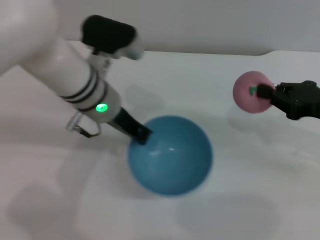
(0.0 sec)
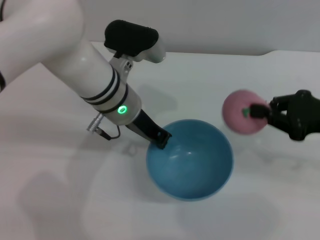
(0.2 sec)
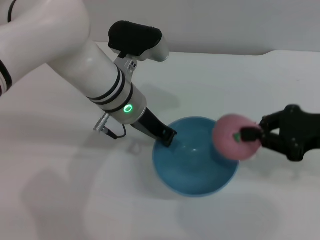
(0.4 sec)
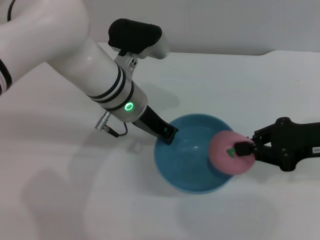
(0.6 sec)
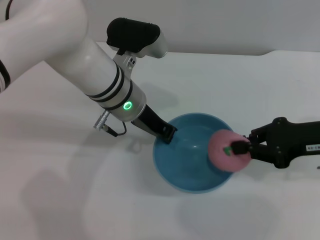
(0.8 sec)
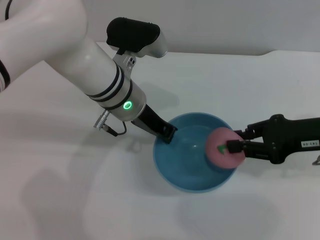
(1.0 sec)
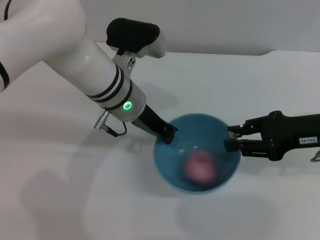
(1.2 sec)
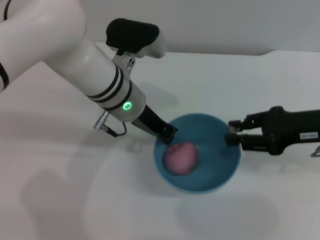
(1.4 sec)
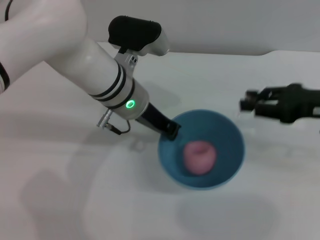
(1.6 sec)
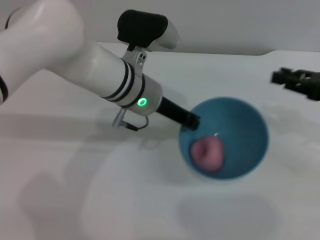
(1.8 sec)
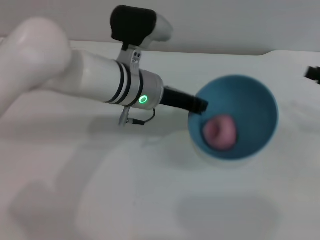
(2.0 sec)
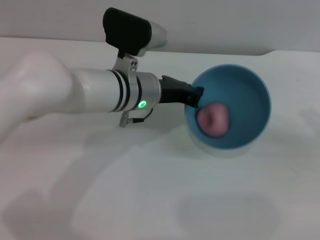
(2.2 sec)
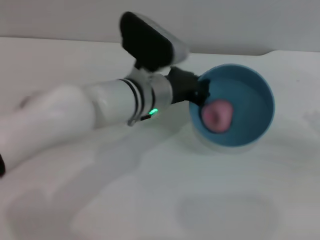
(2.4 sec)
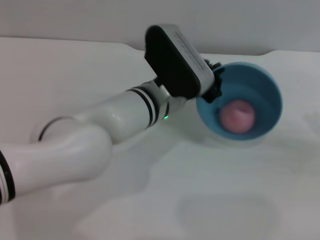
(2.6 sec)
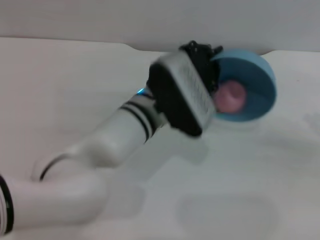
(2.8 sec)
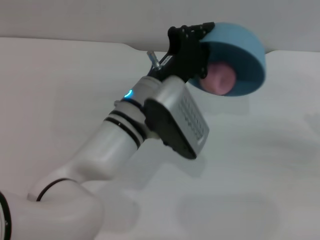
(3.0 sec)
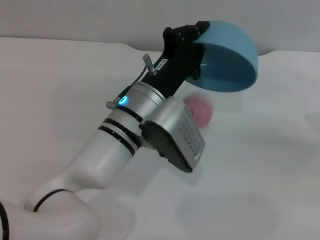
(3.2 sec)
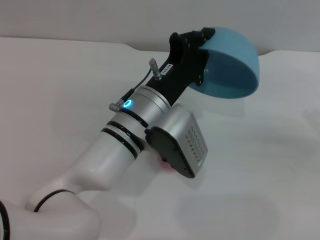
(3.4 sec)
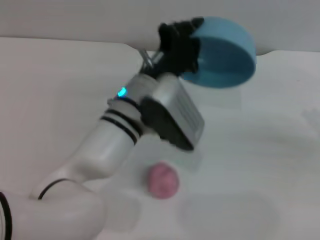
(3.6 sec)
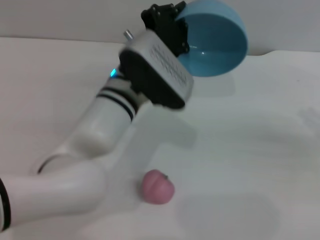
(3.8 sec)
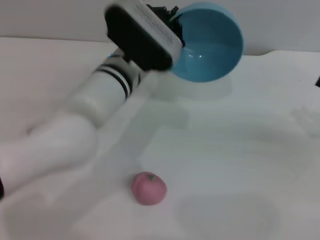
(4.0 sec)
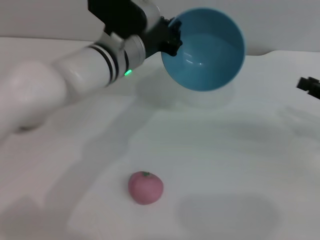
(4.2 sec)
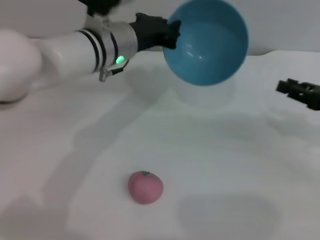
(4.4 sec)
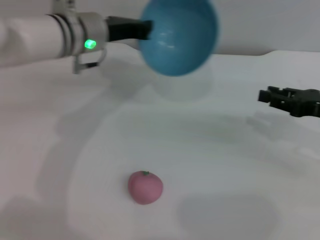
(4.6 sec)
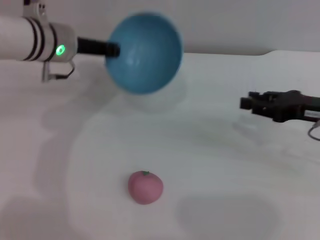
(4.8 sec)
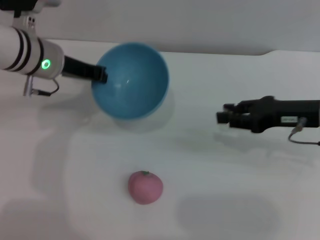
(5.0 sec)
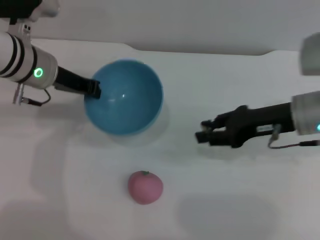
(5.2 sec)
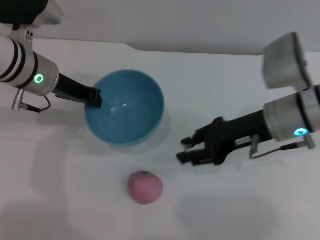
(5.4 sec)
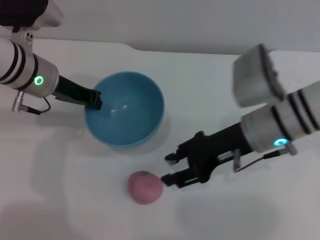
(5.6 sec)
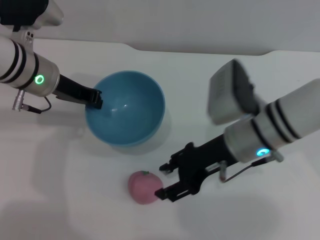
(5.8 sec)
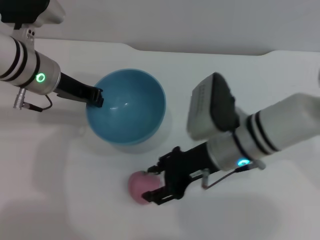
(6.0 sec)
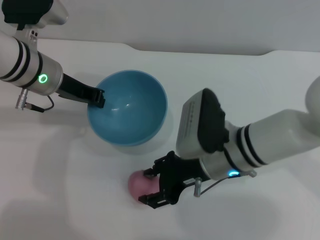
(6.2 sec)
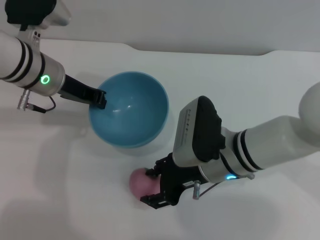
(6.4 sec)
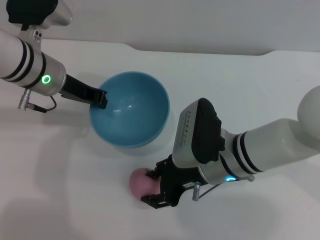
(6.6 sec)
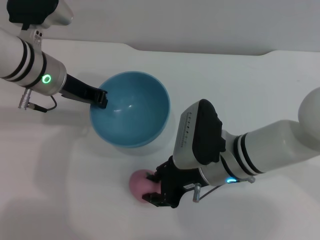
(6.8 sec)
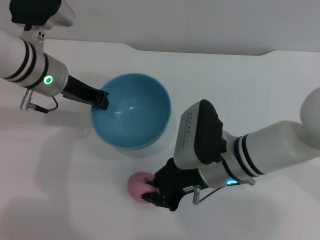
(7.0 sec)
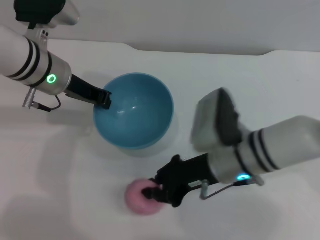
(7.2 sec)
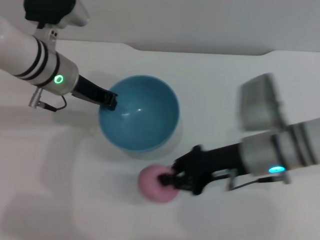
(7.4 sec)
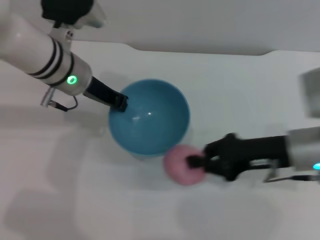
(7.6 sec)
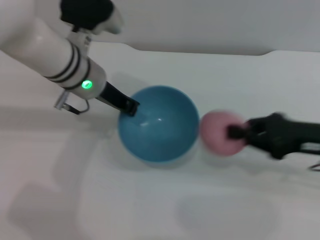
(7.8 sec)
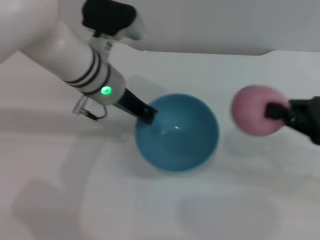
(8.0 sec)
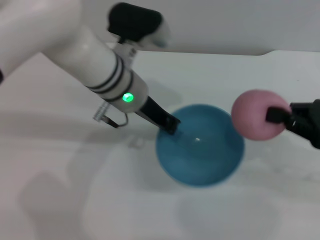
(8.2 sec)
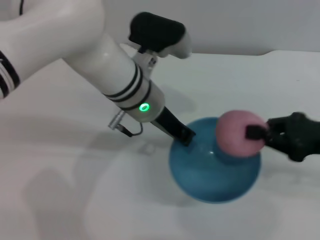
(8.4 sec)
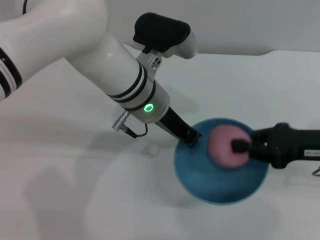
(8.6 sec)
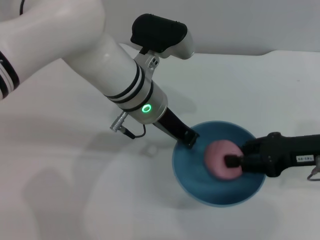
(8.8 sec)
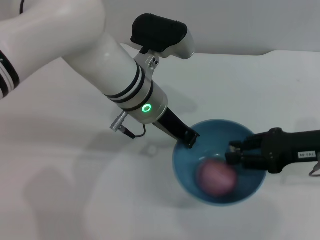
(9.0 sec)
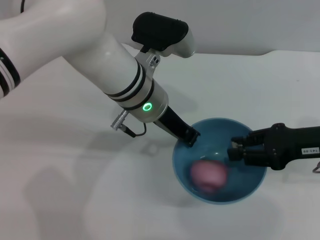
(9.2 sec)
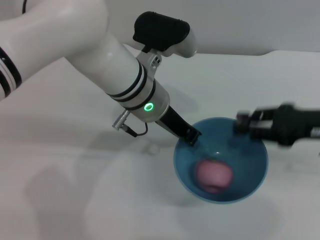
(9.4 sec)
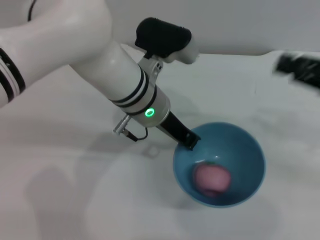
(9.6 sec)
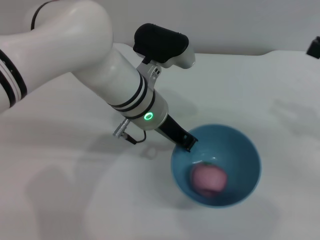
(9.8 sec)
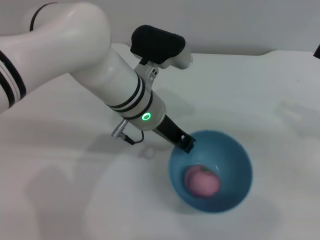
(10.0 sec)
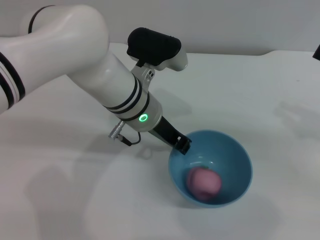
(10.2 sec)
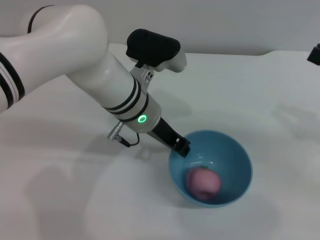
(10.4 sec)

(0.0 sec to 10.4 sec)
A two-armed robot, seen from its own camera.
Task of the whole recording: put the peach into the blue bowl and pour it out repeatedly.
Step, 0.0 sec - 1.8 sec: Place the peach into the bowl.
Step, 2.0 sec - 3.8 sec: Pour the peach out of bowl.
Step, 4.0 sec - 7.4 sec: Pick up the peach with the right gripper.
Step, 7.6 sec - 9.2 sec: Place the peach into the bowl.
0.0 sec - 1.4 sec: The right gripper opens.
1.4 sec - 3.0 sec: The right gripper is displaced to the right by roughly 15 cm, while the left gripper moves backward, some 5 cm.
3.0 sec - 4.4 sec: The left gripper travels forward and to the left by about 10 cm; the right gripper heads to the left, covering about 5 cm.
4.4 sec - 6.0 sec: The left gripper moves to the left, roughly 10 cm; the right gripper is displaced to the left by some 25 cm, and opens.
6.0 sec - 7.4 sec: The right gripper closes.
7.4 sec - 9.0 sec: Both grippers travel together to the right, about 10 cm.
9.0 sec - 10.4 sec: The right gripper shifts approximately 10 cm to the right.

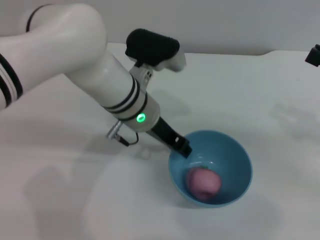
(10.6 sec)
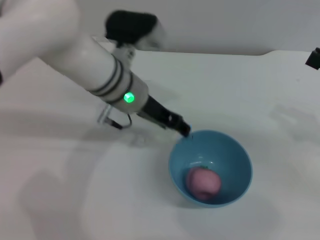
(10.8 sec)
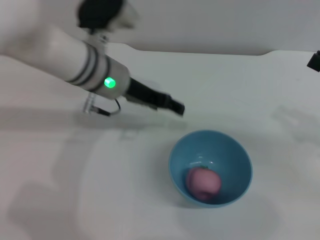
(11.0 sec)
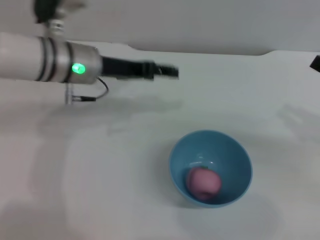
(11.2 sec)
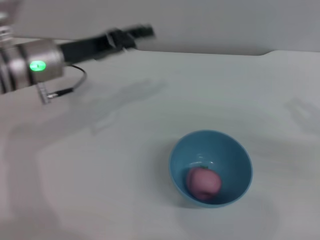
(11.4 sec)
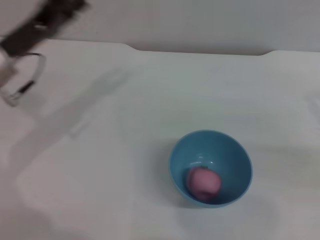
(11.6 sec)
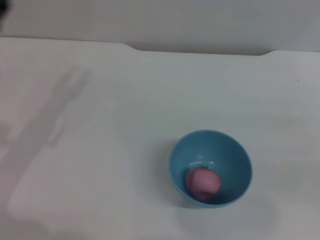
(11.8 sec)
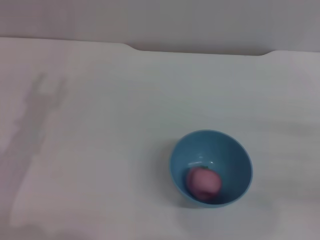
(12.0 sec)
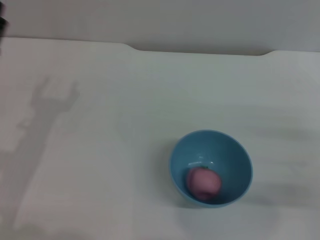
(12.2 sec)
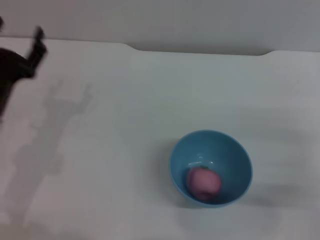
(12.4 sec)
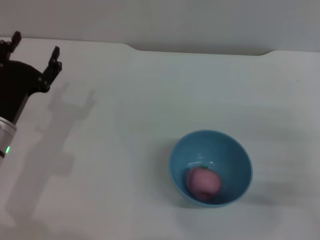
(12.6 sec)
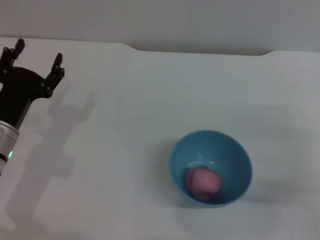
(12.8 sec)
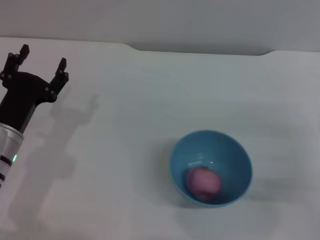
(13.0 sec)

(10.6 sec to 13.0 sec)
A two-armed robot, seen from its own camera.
Task of the whole recording: put the peach into the blue bowl and pour it out repeatedly.
10.6 sec - 11.8 sec: The left gripper is displaced to the left by about 25 cm, and opens. The right gripper heads downward, covering some 5 cm.
11.8 sec - 13.0 sec: The left gripper moves downward, approximately 5 cm.
